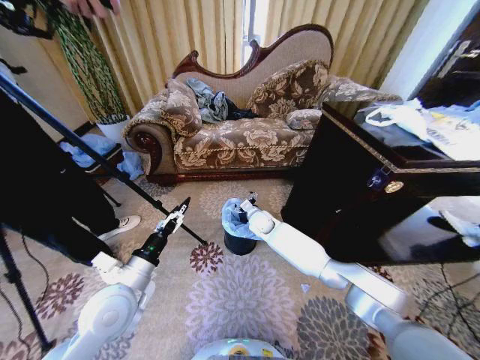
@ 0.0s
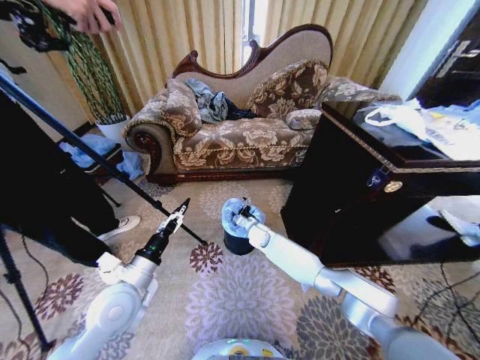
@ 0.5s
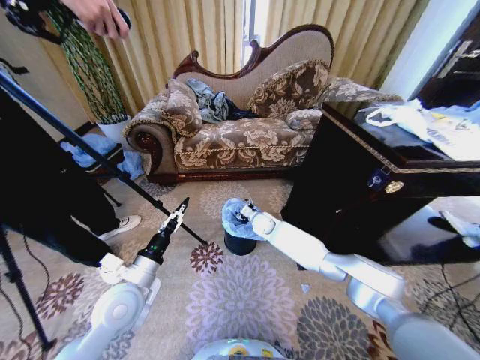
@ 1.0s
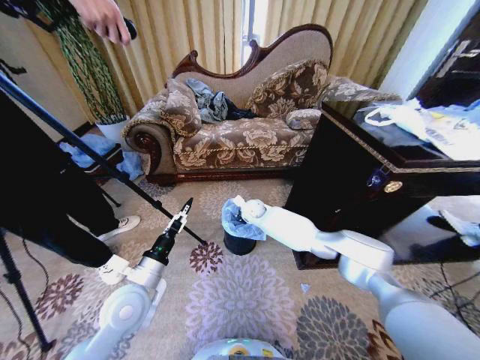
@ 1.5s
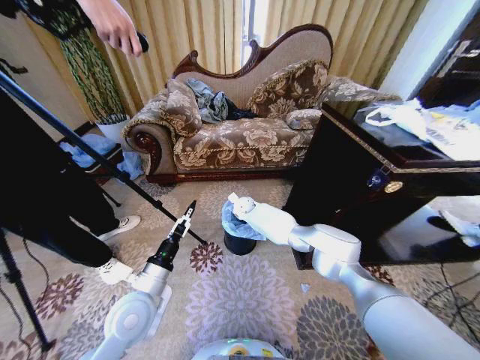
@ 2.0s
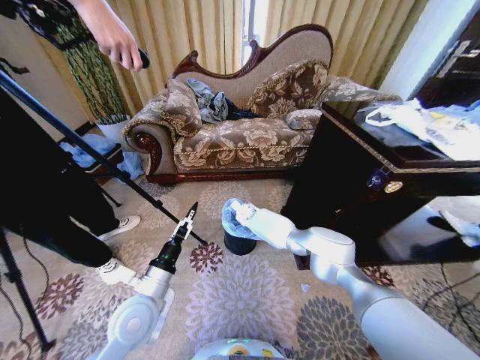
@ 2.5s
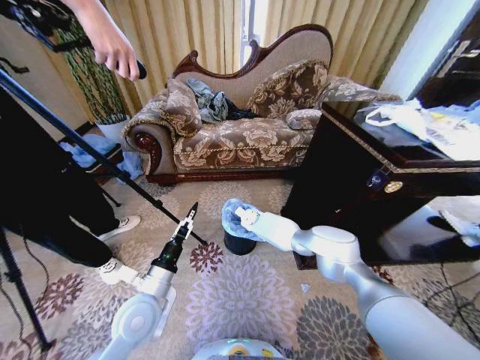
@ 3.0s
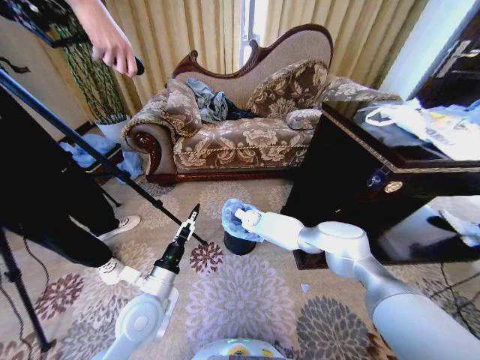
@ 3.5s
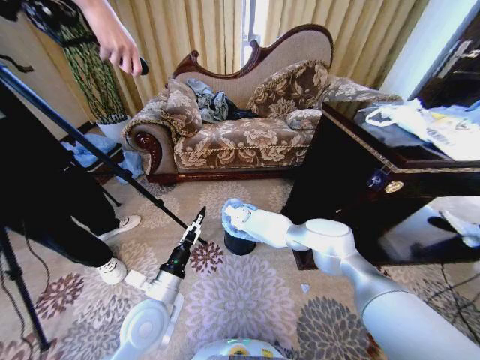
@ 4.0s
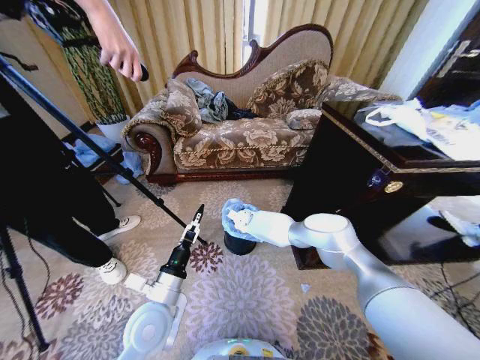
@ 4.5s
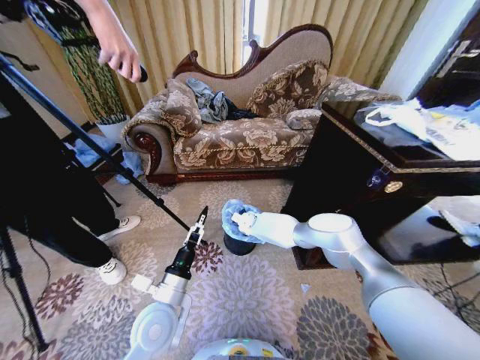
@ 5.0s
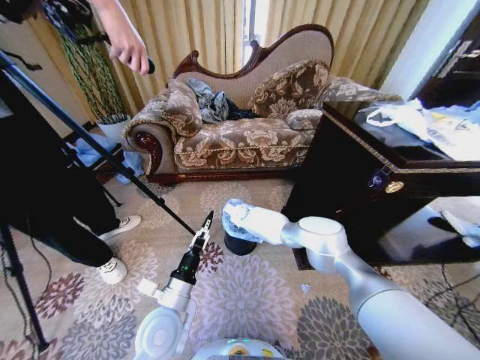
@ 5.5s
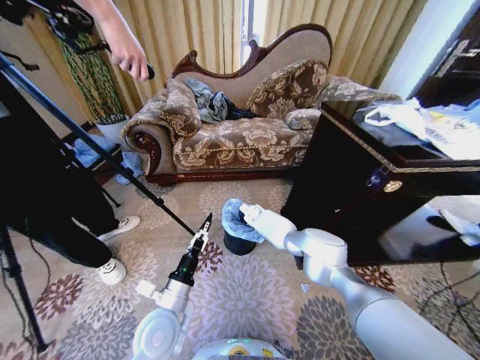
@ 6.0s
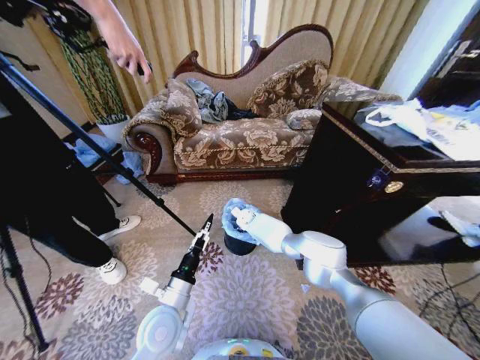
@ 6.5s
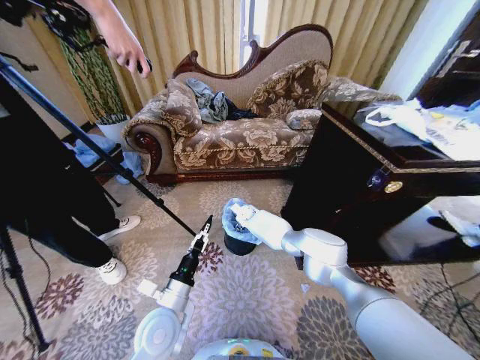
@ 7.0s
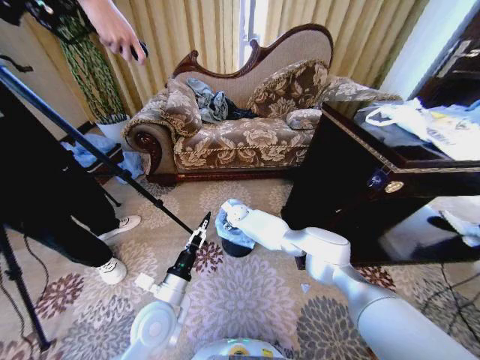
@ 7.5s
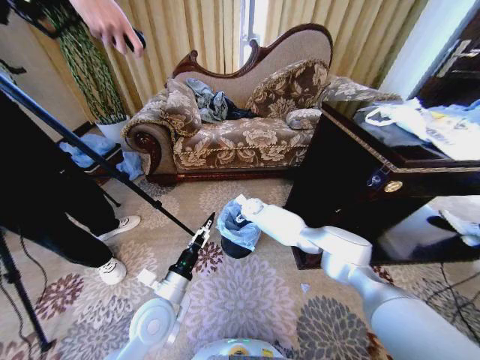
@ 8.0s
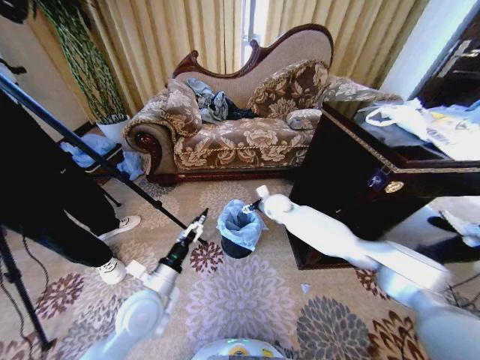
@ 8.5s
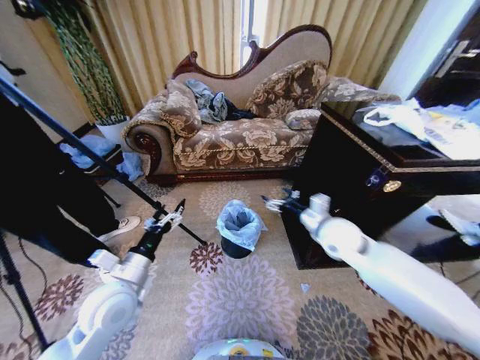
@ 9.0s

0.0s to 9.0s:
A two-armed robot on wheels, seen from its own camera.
Task of the whole recording: Place a garbage bag over the trash bin.
0.0s to 2.0s: The right gripper moves forward and to the left, about 10 cm, reaches about 5 cm downward, then returns, and closes up.
2.0s to 4.5s: The right gripper moves downward, some 5 cm.
4.5s to 7.0s: The right gripper opens.
7.0s to 9.0s: The right gripper moves to the right, backward and upward, roughly 40 cm, while the left gripper heads to the left and upward, covering approximately 10 cm.

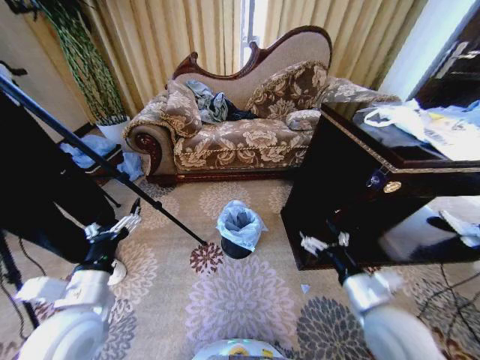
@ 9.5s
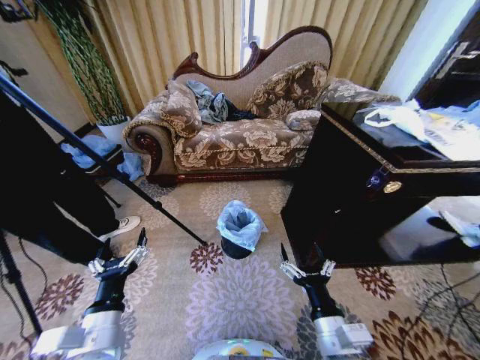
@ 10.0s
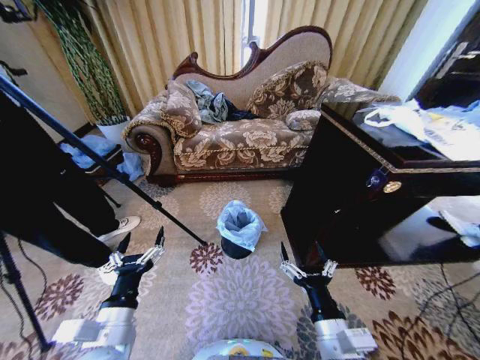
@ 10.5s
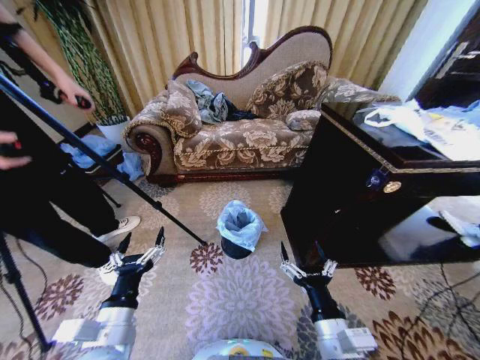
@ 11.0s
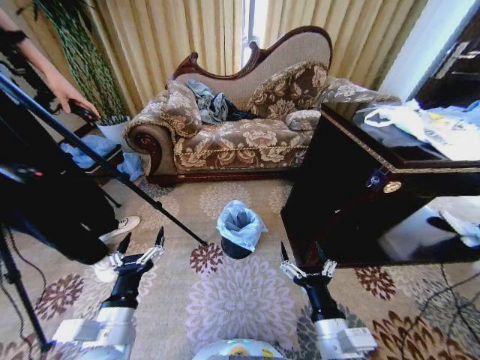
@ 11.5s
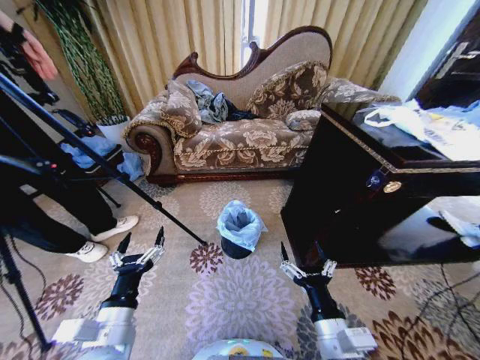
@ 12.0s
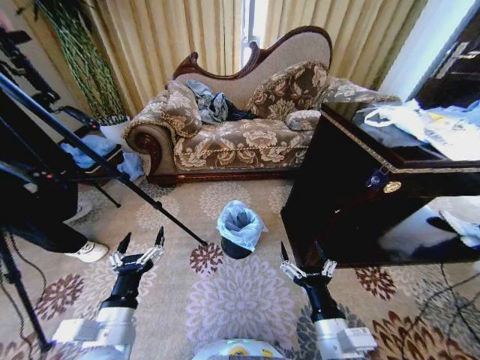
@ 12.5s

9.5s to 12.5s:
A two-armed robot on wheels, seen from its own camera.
Task of the whole recording: Place a garbage bag over the trash bin.
9.5s to 11.0s: The right gripper travels to the left and backward by some 15 cm. Meanwhile the left gripper is displaced to the right by about 5 cm.
11.0s to 12.5s: The two grippers keep their place.

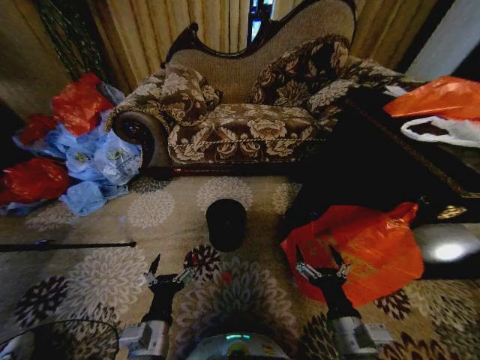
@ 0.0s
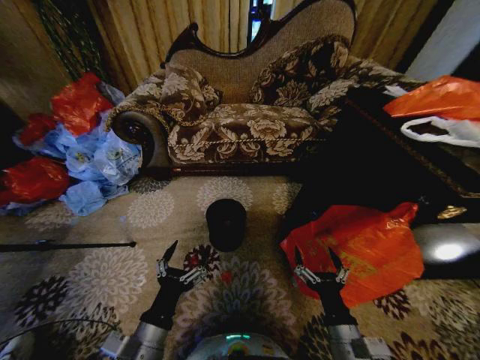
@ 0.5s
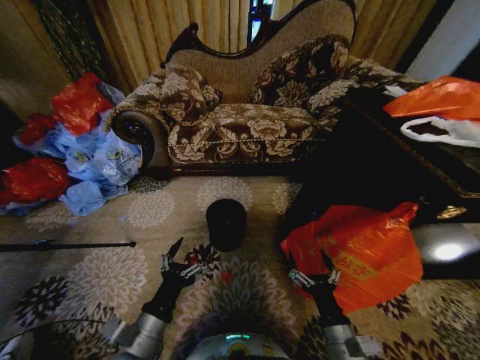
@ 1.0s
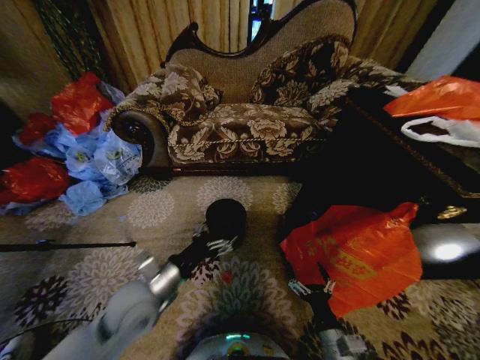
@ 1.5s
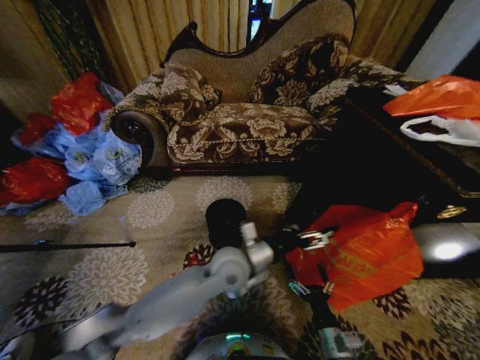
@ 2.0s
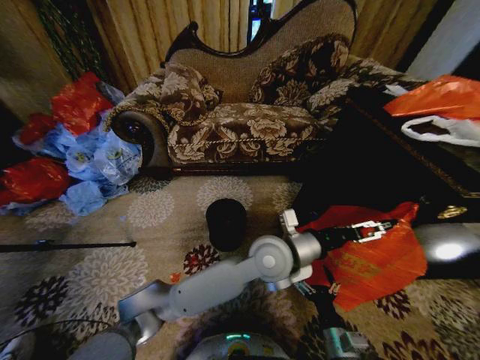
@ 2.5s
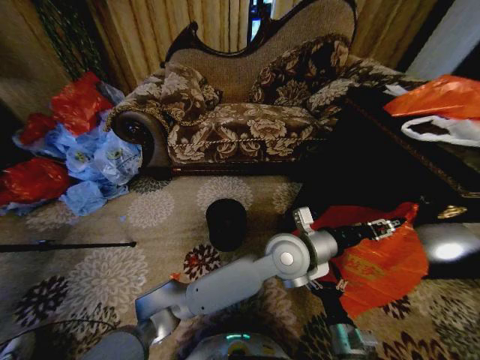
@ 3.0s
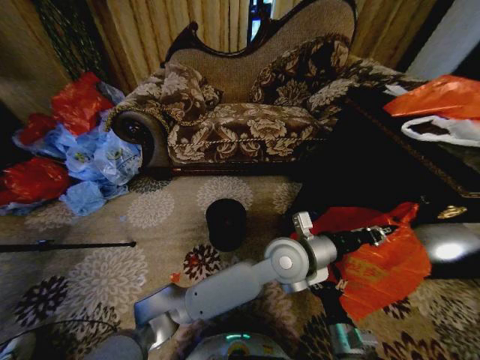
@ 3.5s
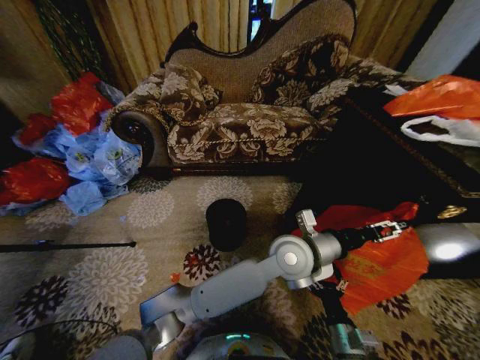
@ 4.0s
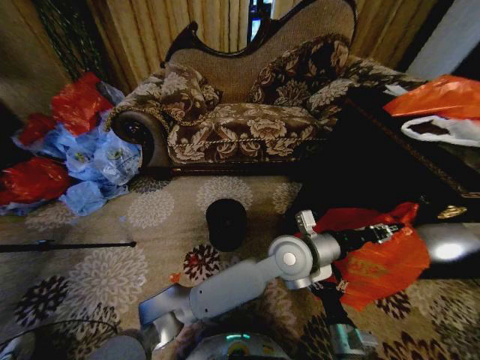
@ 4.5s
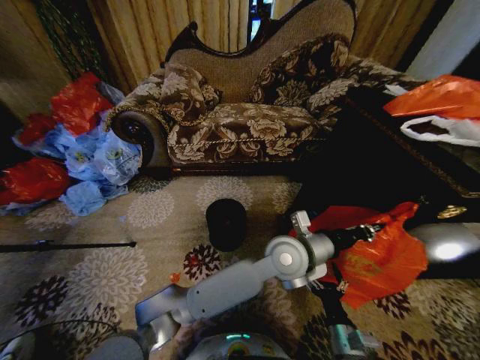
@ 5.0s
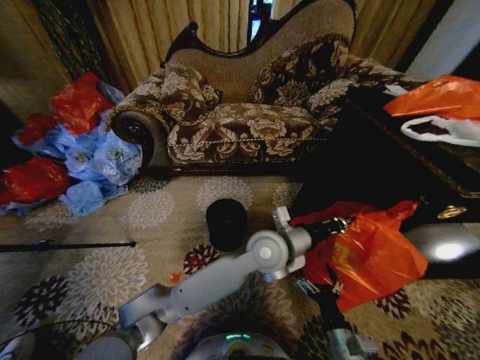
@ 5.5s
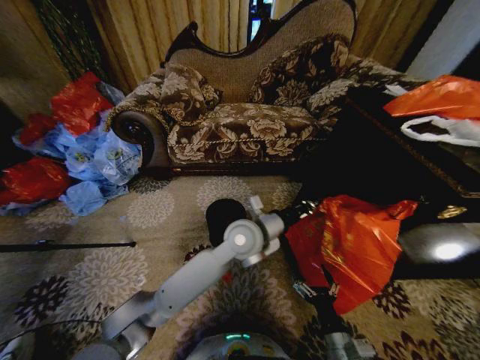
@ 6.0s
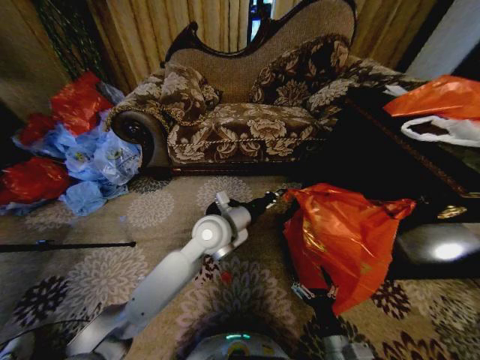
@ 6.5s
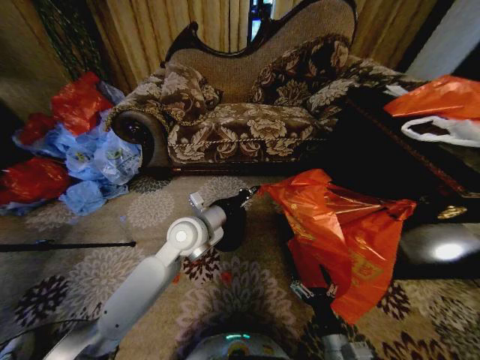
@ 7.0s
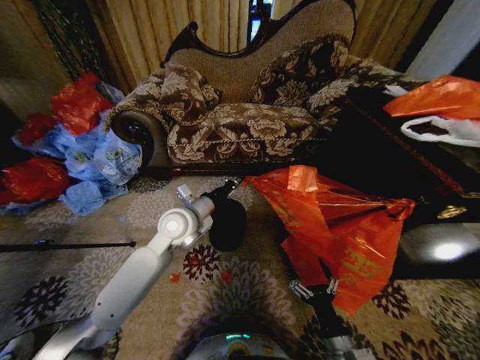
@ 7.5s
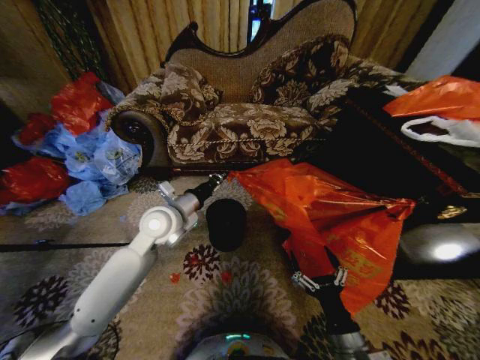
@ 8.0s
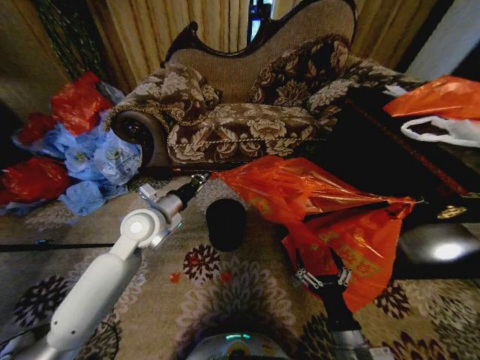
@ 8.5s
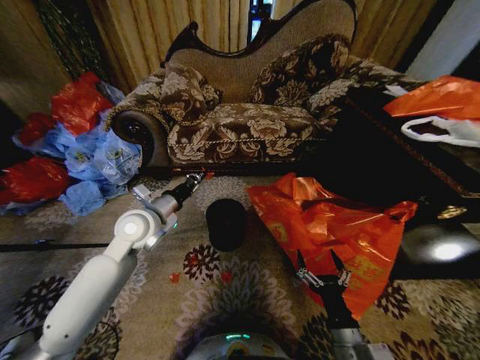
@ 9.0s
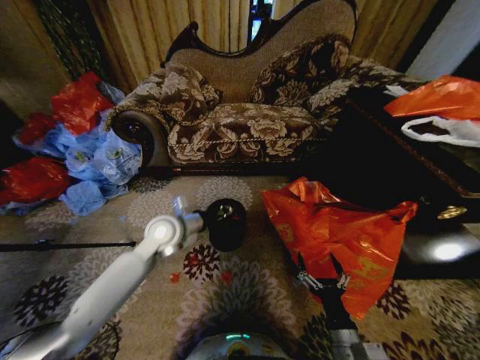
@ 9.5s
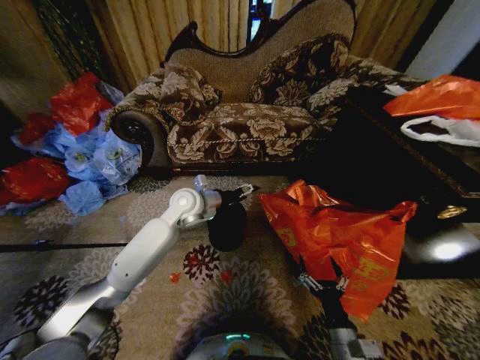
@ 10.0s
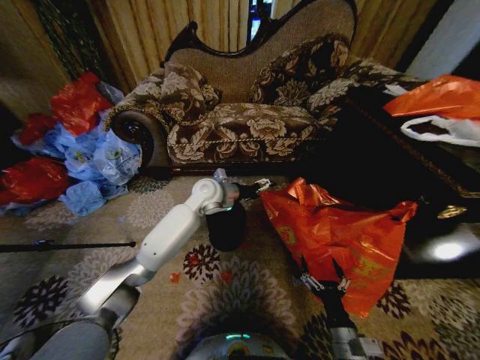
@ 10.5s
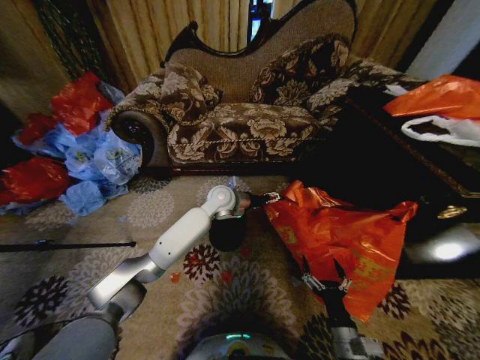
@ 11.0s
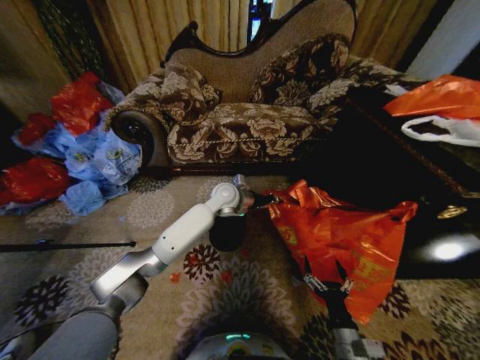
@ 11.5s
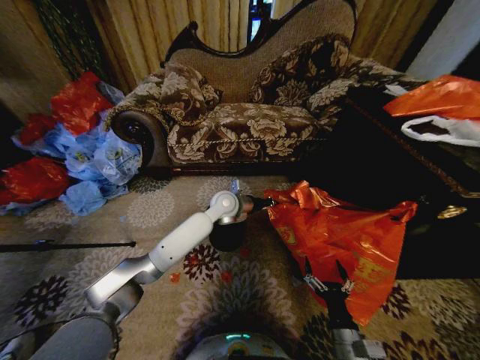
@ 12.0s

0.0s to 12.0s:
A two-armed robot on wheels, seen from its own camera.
Task of the whole recording: Place a garbage bag over the trash bin.
2.0s to 4.0s: The left gripper travels to the right by roughly 15 cm, and closes and opens again.
4.0s to 6.0s: The left gripper heads to the left, covering approximately 10 cm, and closes.
6.0s to 8.0s: The left gripper heads to the left, covering roughly 20 cm; the right gripper travels upward by approximately 5 cm.
8.0s to 10.0s: The left gripper is displaced forward by approximately 10 cm, and opens up, while the right gripper changes place by approximately 5 cm.
10.0s to 12.0s: The left gripper travels to the right by roughly 10 cm, and closes its fingers.

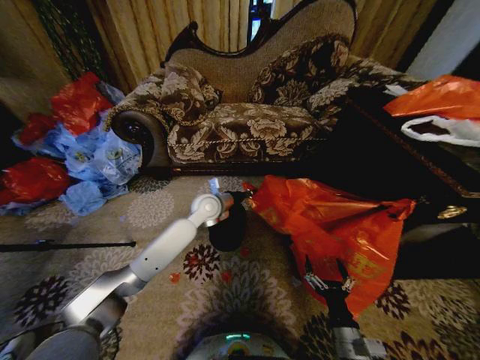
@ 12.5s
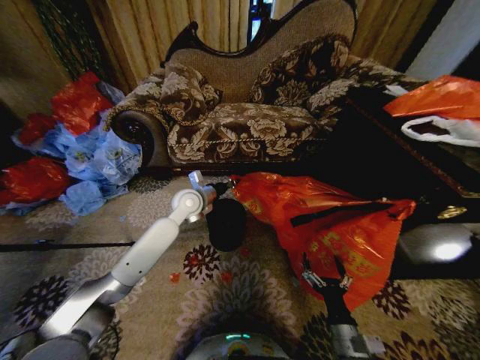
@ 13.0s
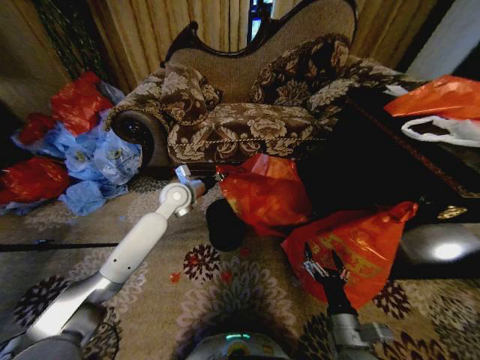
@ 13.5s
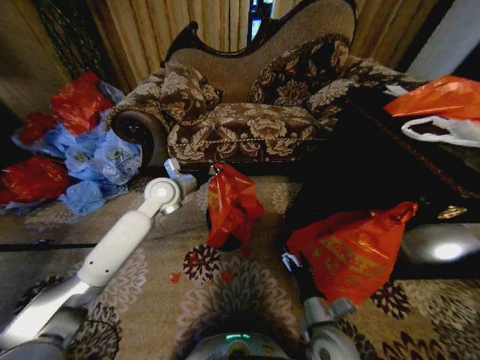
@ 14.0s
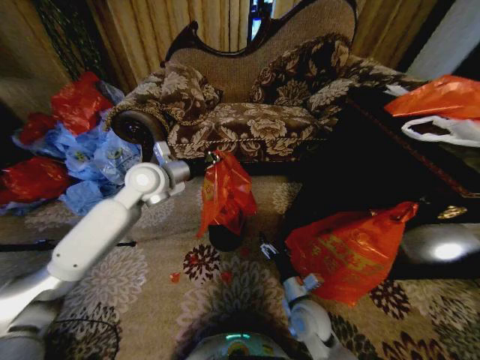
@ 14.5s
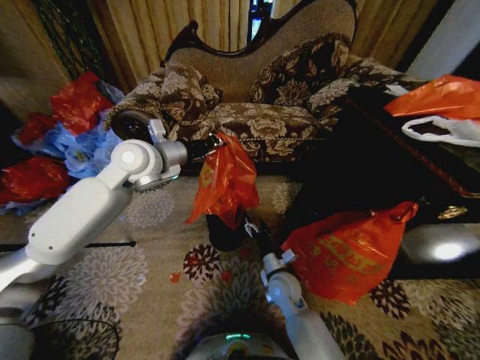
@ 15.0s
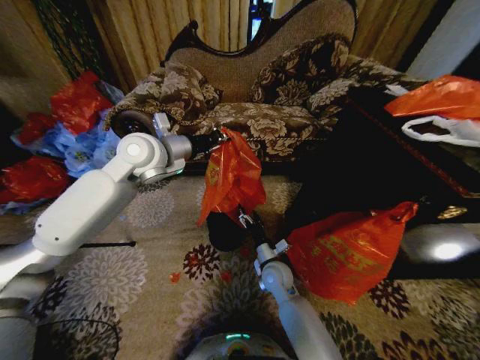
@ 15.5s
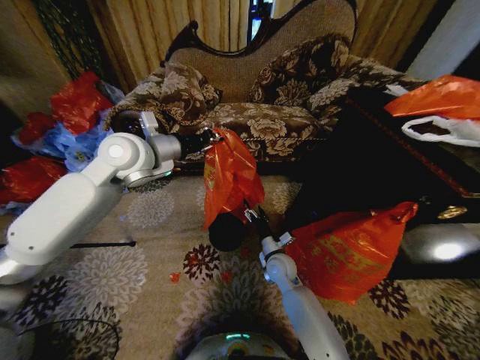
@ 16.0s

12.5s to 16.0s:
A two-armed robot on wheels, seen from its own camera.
Task of the whole recording: Place a garbage bag over the trash bin.
12.5s to 14.5s: The right gripper travels forward and to the left by about 15 cm; the left gripper shifts approximately 20 cm upward and to the left.
14.5s to 16.0s: The right gripper travels forward by some 15 cm. Meanwhile the left gripper moves upward, roughly 5 cm.
